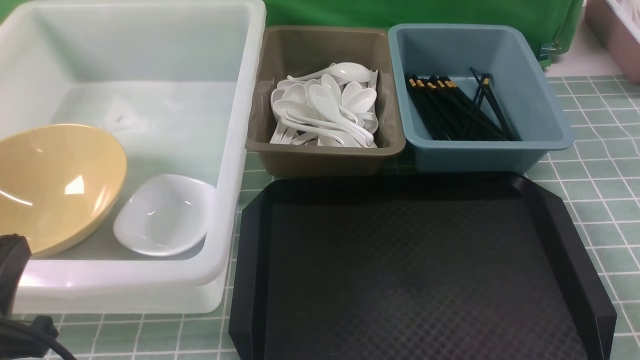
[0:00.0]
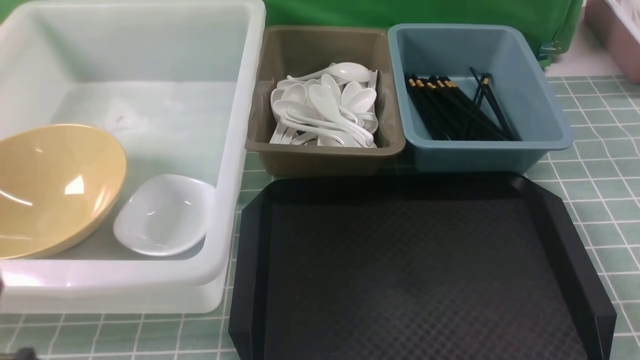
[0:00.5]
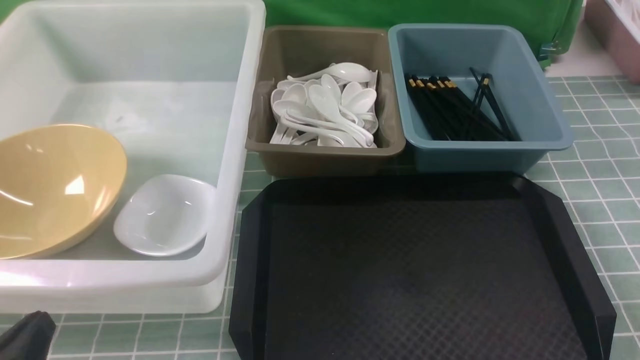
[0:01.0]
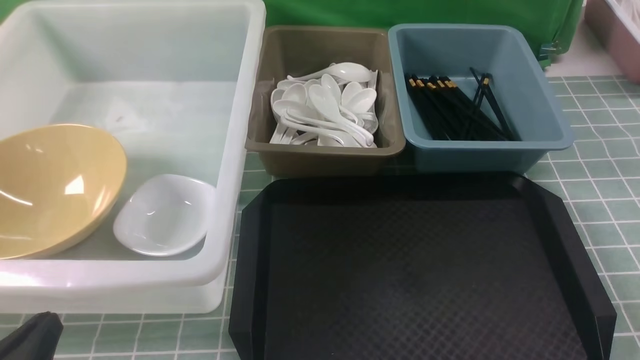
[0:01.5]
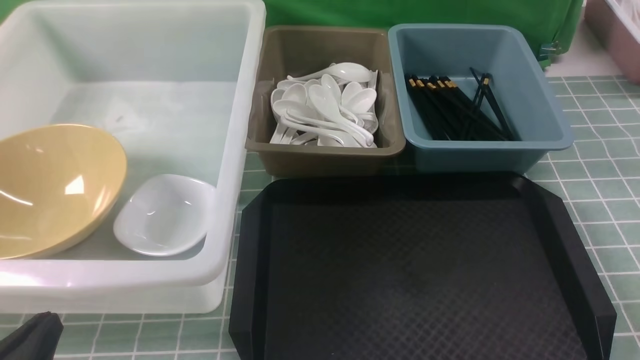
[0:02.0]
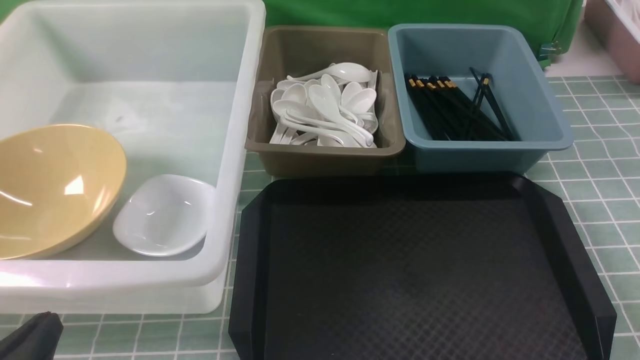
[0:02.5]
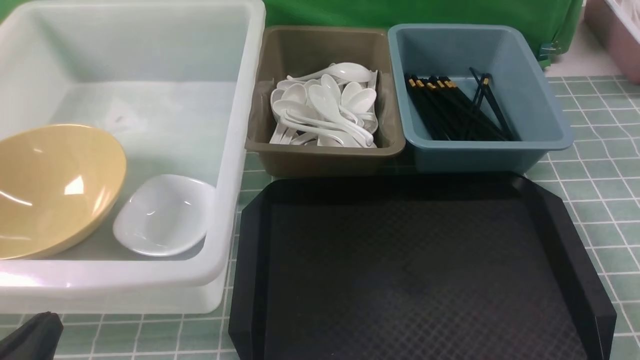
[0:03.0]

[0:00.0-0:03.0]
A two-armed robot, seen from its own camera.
Task of the whole recording: on blue table put chopsticks spoon bowls plates into blue grey white boxes.
0:00.0 to 0:01.5: The left gripper goes approximately 10 cm downward.
0:01.5 to 0:03.0: Both grippers stay about where they are.
